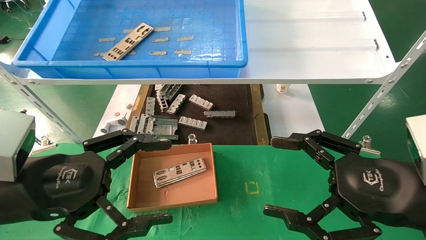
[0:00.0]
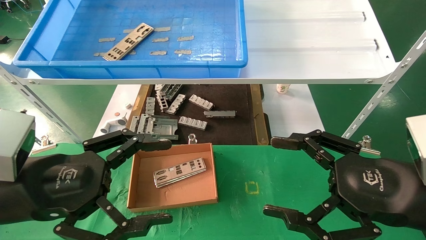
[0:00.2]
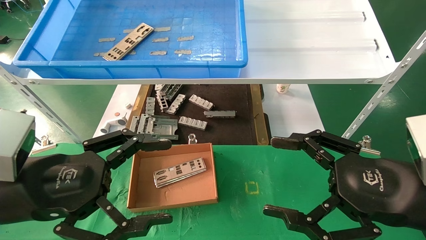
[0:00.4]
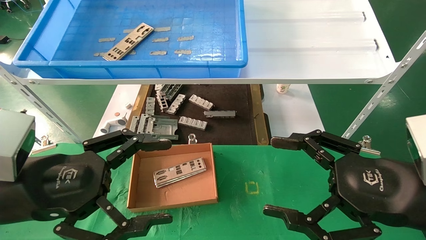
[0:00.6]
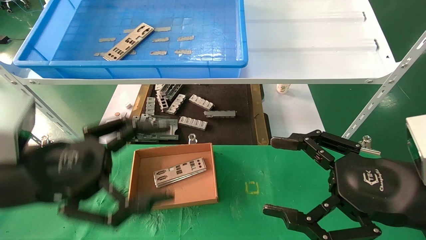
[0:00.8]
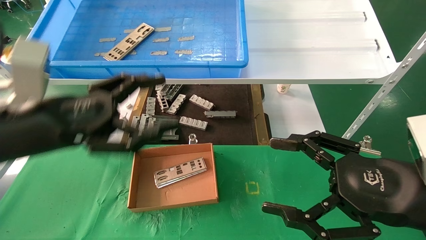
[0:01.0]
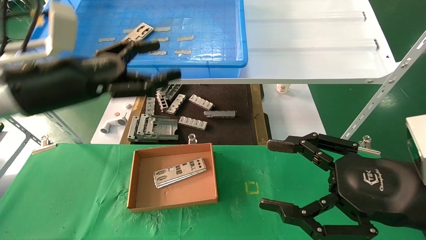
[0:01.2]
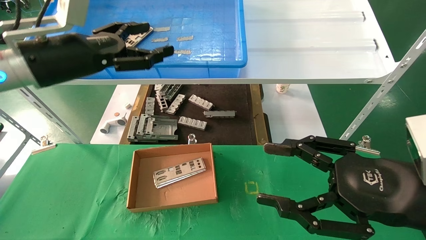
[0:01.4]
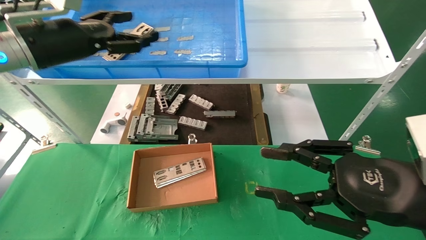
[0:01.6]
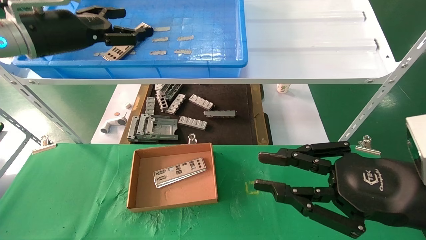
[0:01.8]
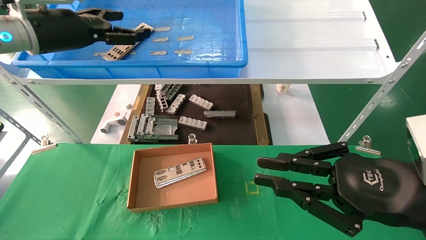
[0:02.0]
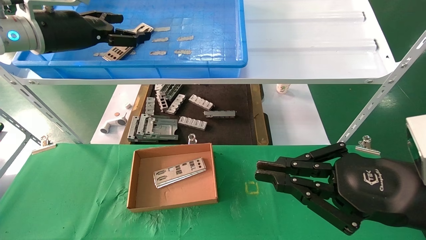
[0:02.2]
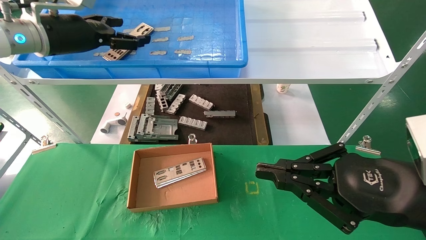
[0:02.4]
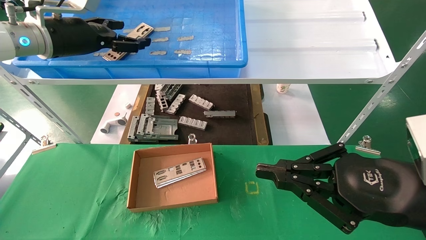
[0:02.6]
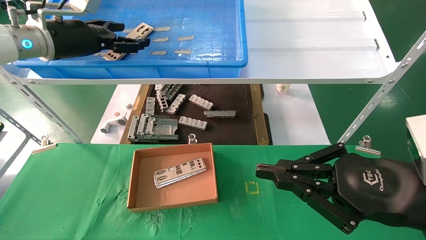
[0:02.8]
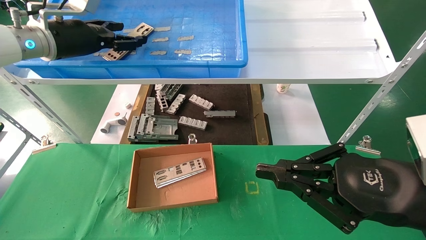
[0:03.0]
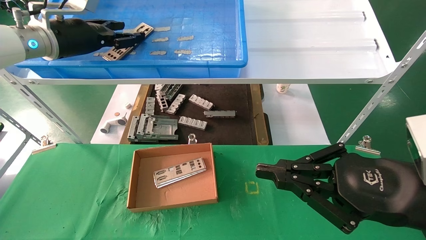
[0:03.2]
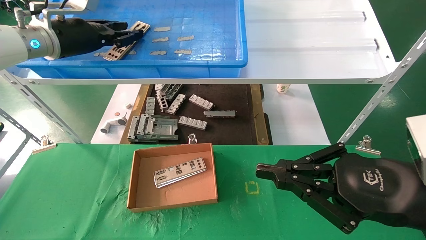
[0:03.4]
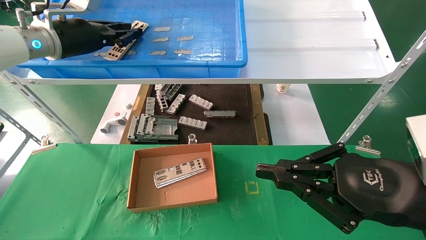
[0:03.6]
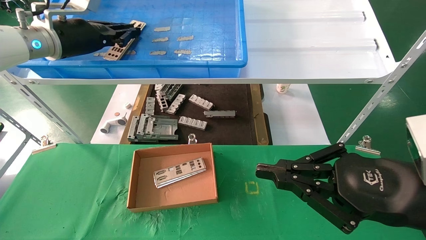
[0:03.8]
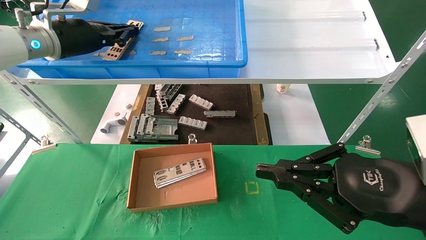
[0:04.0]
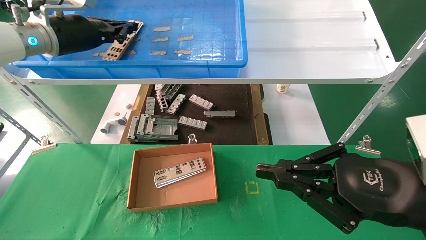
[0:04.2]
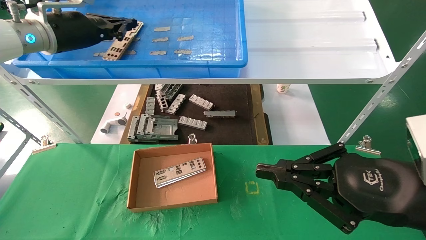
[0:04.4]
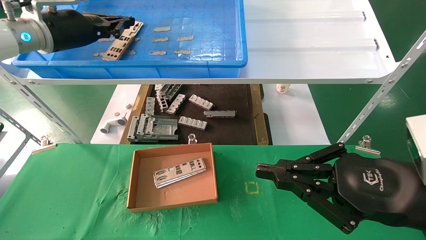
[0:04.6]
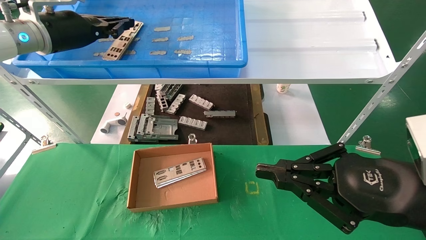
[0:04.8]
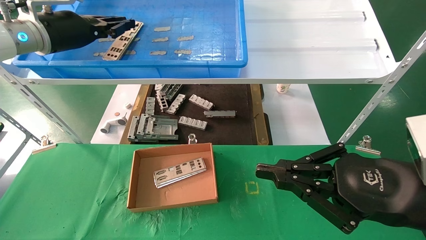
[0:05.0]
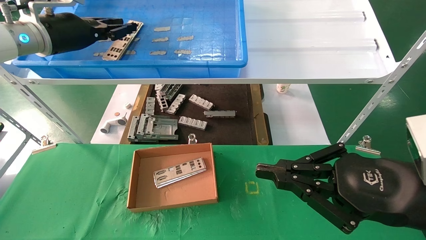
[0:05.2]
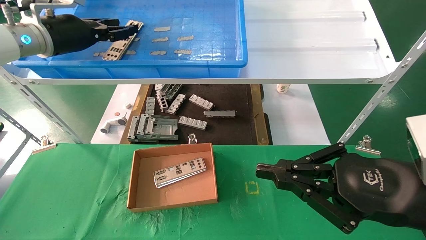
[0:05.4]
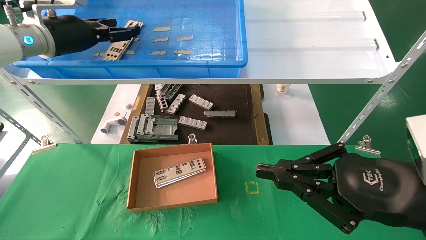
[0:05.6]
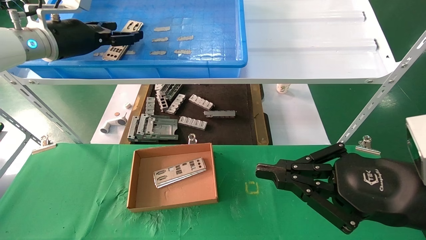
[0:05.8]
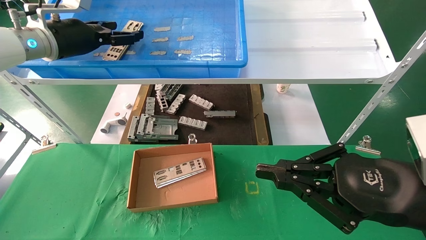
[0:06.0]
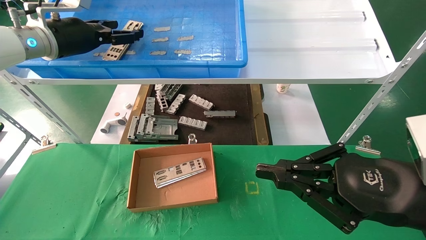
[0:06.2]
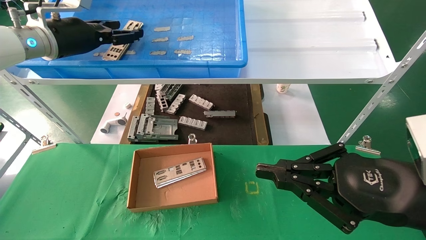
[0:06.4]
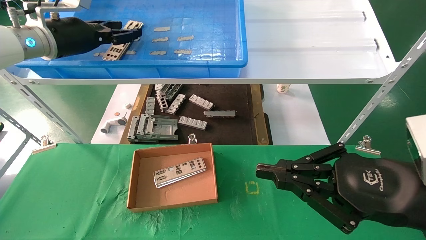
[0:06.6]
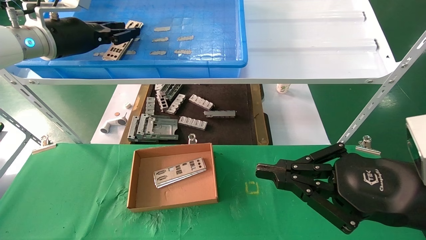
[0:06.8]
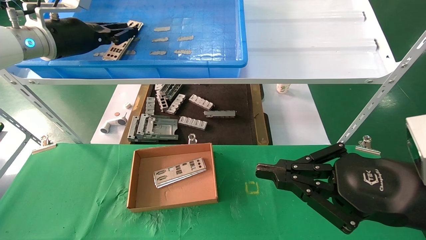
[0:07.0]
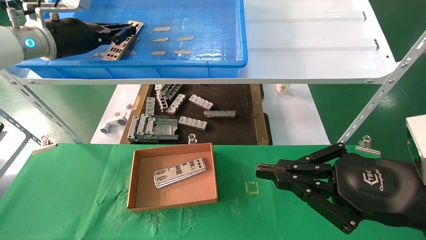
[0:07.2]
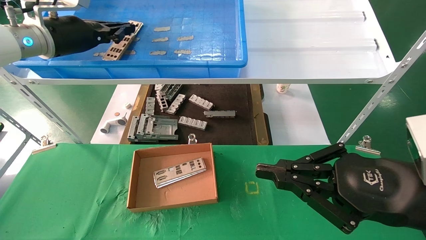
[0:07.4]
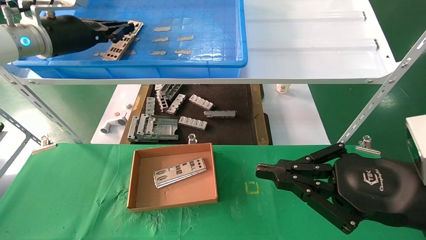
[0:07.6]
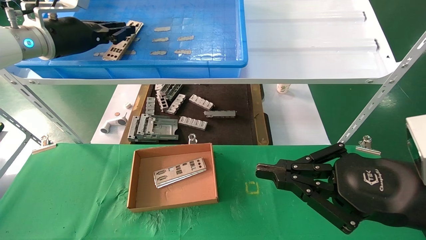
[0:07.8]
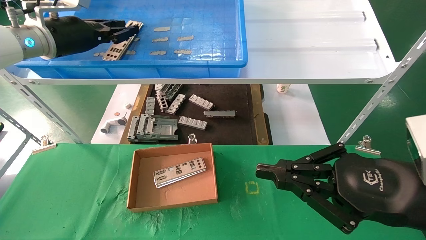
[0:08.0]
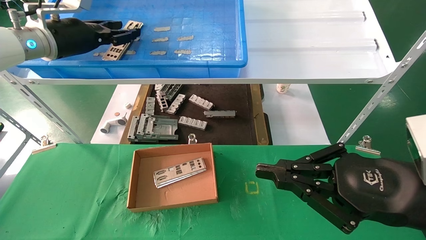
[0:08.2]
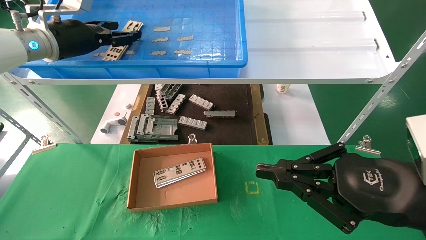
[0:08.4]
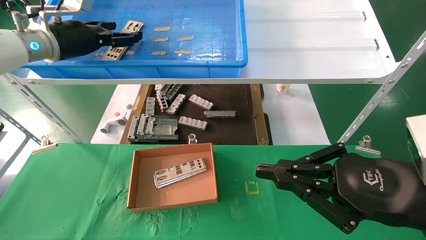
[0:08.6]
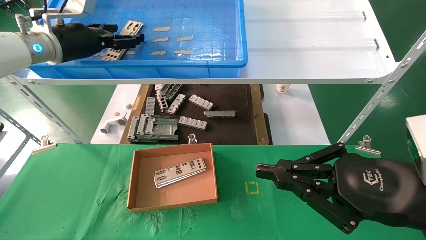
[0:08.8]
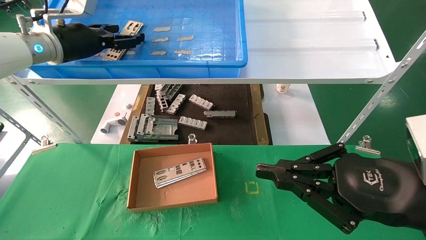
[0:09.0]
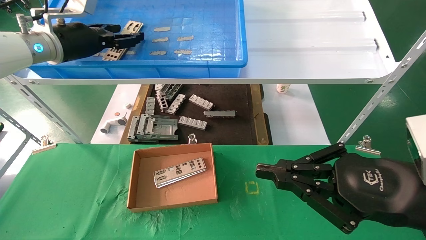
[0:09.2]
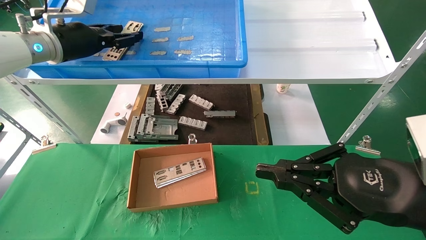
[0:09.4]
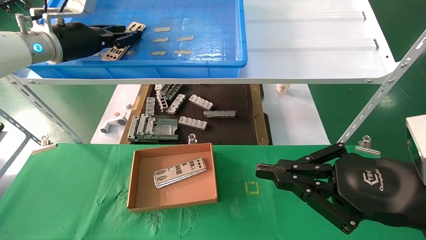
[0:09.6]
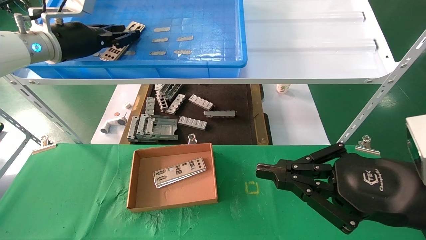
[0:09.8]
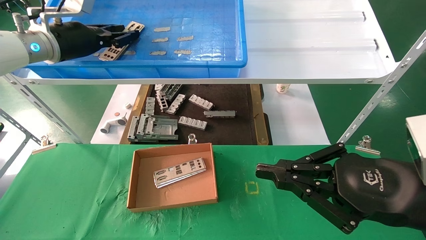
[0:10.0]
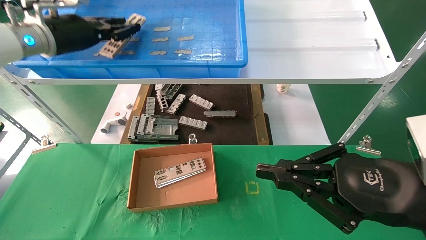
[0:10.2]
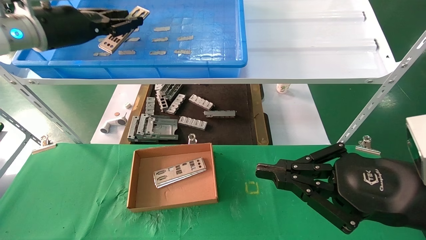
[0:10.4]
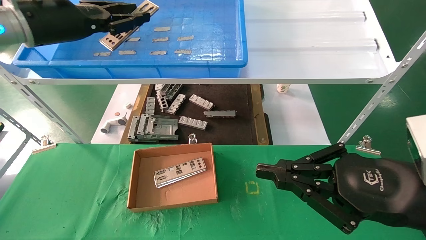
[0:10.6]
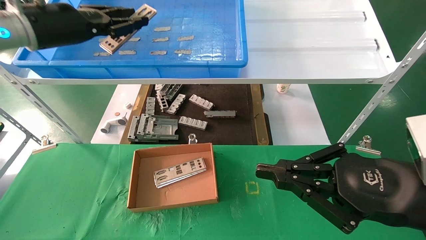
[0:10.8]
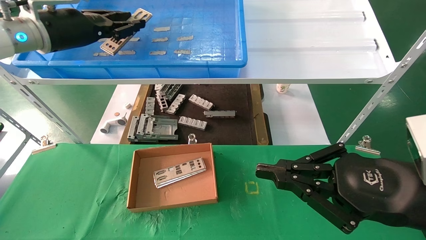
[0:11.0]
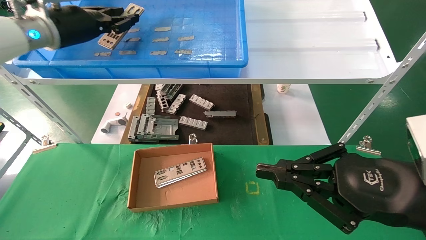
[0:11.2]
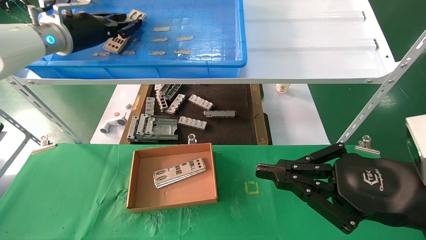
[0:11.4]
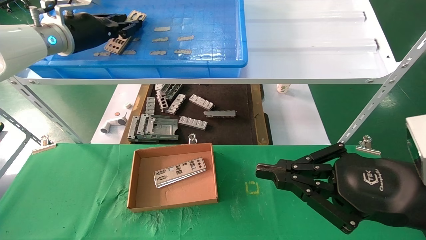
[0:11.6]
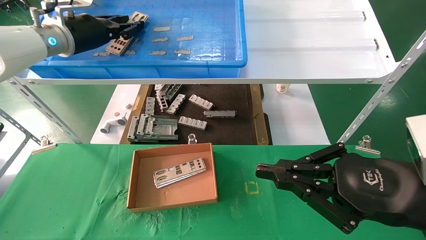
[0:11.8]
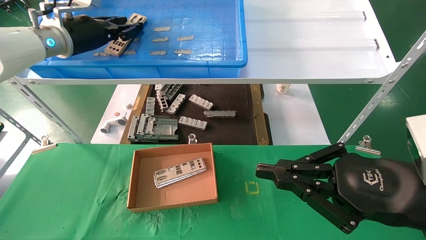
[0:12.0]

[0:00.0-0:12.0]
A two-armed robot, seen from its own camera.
Task of the whole recording: pick up the parts on the tray and put them in the cardboard box.
0:00.0 to 0:01.6: The right gripper closes up. The left gripper is displaced forward and upward by roughly 25 cm.
0:01.6 to 0:03.0: The left gripper is displaced forward by approximately 5 cm; the right gripper closes.
0:03.0 to 0:04.4: The left gripper closes its fingers.
0:04.4 to 0:06.0: The left gripper opens up.
0:06.0 to 0:07.6: The left gripper closes.
0:07.6 to 0:09.0: The left gripper opens up.
0:09.0 to 0:10.4: The left gripper closes up.
0:10.4 to 0:12.0: The grippers move only a little.

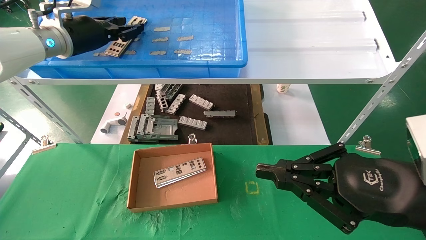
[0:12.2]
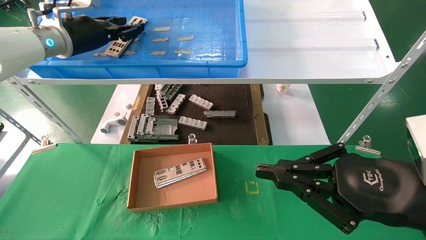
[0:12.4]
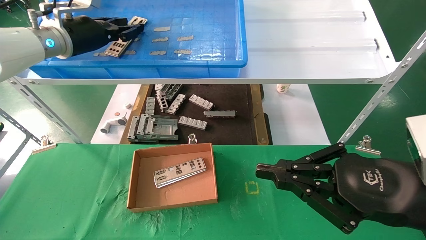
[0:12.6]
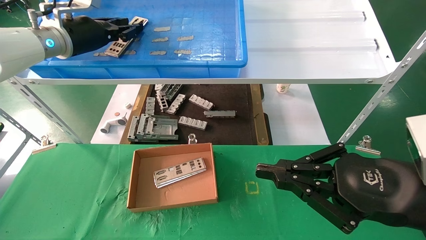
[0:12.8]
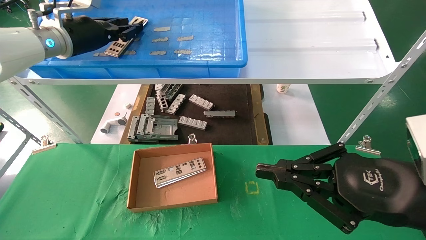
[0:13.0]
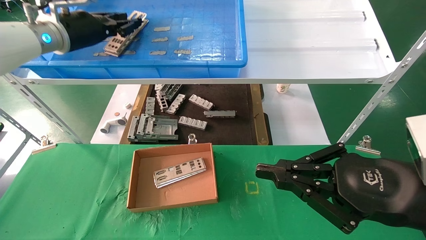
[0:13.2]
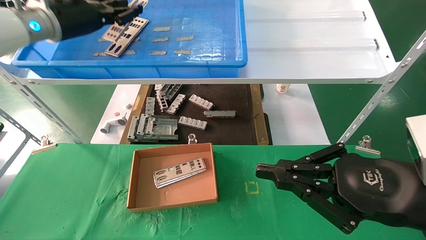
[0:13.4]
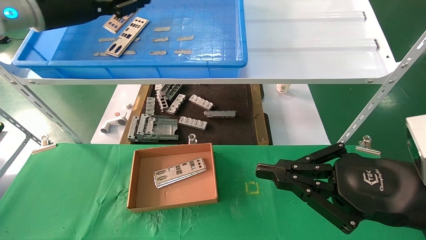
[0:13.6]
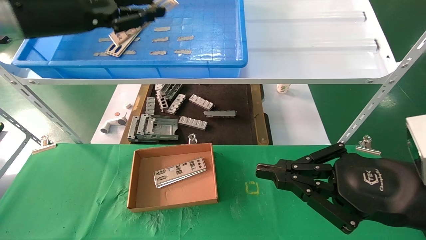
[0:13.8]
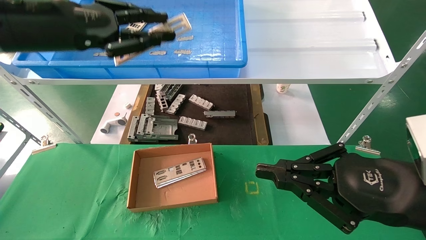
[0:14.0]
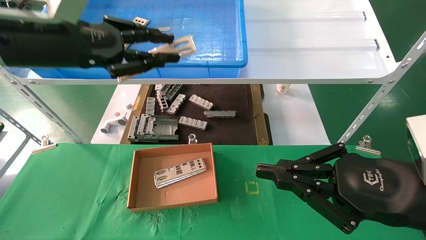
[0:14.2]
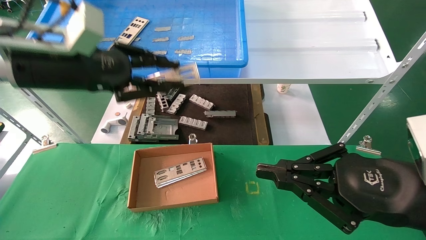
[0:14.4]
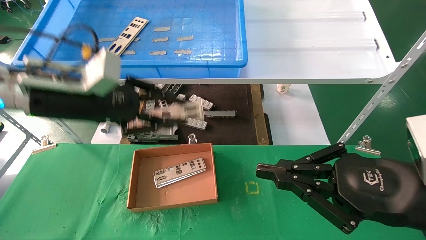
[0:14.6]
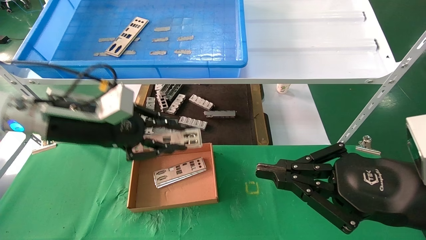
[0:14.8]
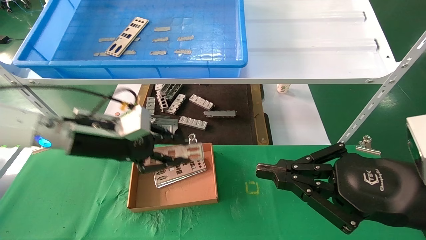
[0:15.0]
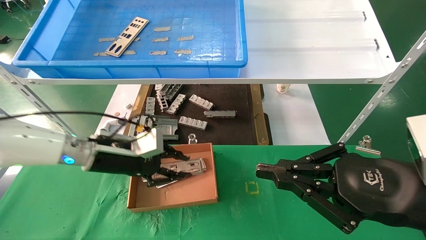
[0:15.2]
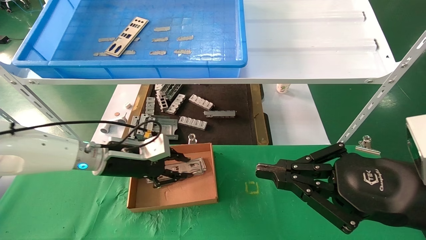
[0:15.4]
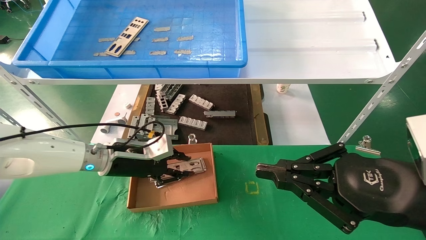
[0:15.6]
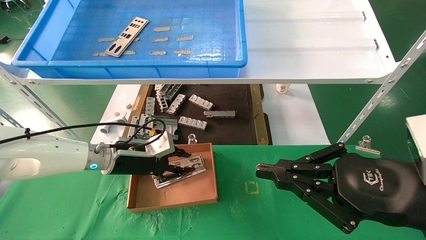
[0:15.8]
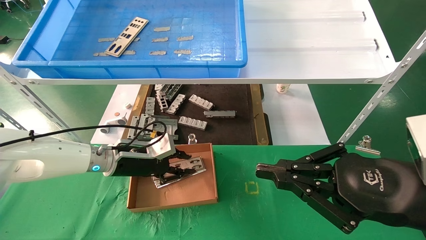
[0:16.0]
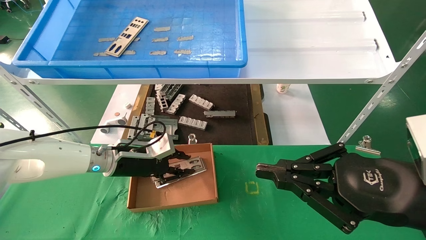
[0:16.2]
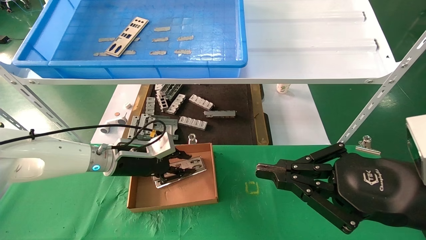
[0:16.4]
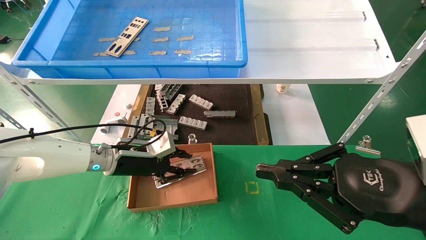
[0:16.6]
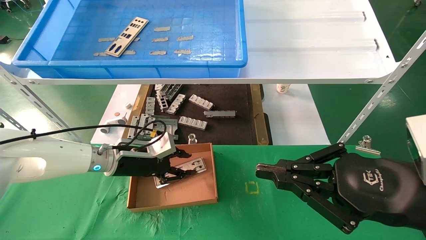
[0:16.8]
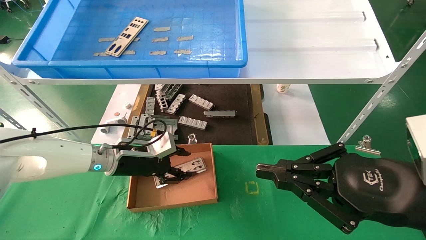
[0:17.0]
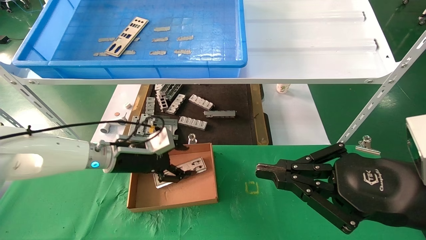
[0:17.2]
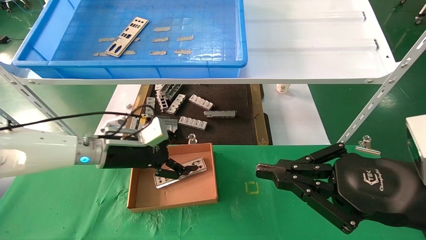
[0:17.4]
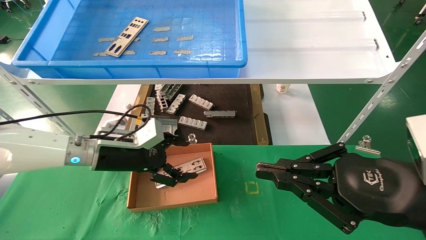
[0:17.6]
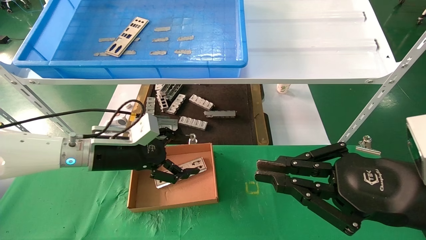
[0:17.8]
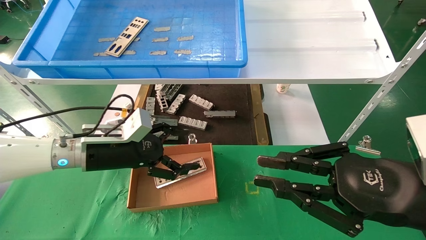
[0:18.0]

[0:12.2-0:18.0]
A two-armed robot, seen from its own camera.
Task of the whole recording: pick up the parts on the tray and put them in the cardboard box.
Step, 0:13.6 to 0:17.0: Place the IO bracket into the ingredient slot.
0:12.2 to 0:13.6: The left gripper moves backward, roughly 5 cm.
0:13.6 to 0:15.0: The left gripper shifts about 20 cm downward.
0:15.0 to 0:16.6: The left gripper is displaced downward and forward by about 10 cm.
0:16.6 to 0:18.0: The left gripper shifts roughly 5 cm backward, and opens up.
